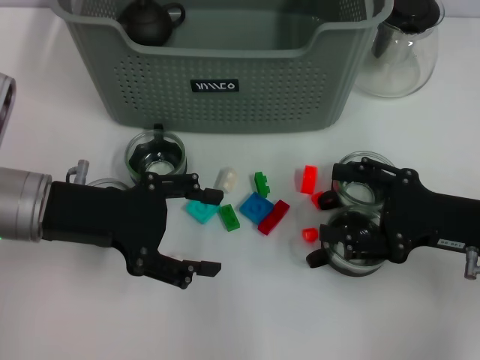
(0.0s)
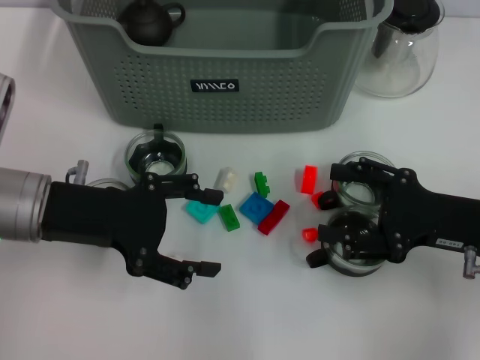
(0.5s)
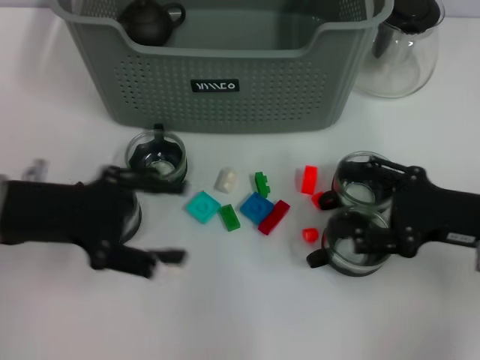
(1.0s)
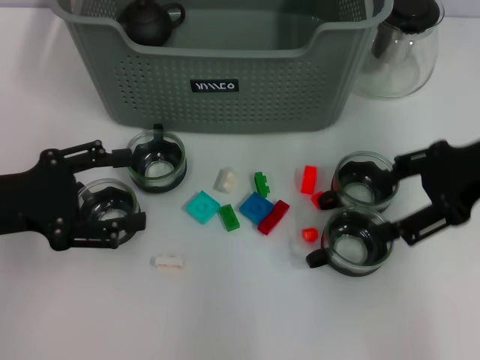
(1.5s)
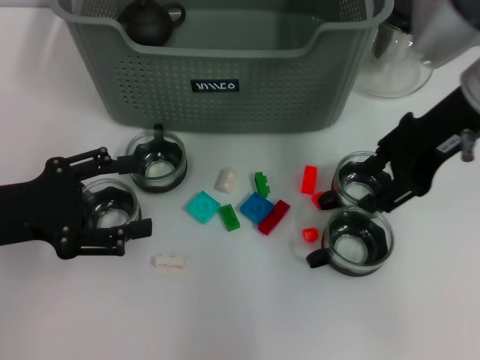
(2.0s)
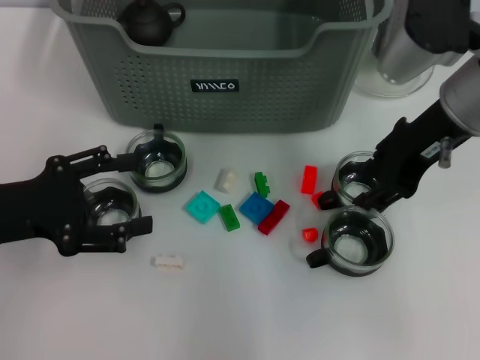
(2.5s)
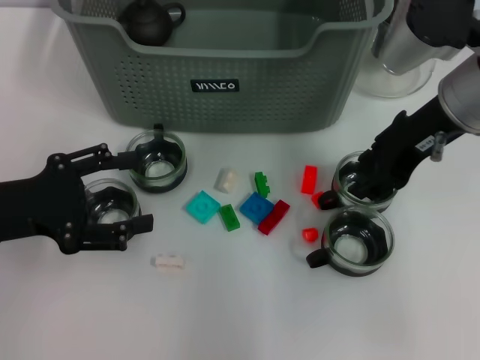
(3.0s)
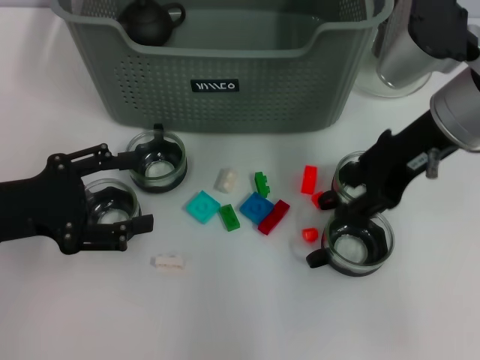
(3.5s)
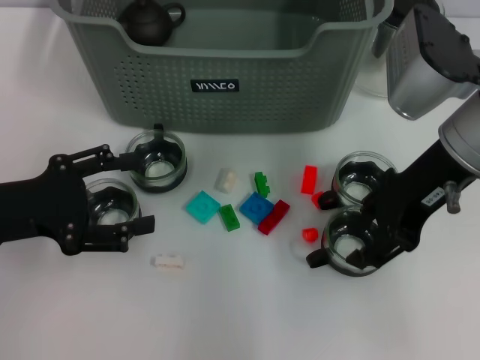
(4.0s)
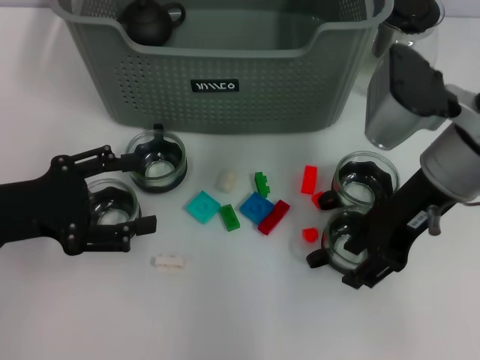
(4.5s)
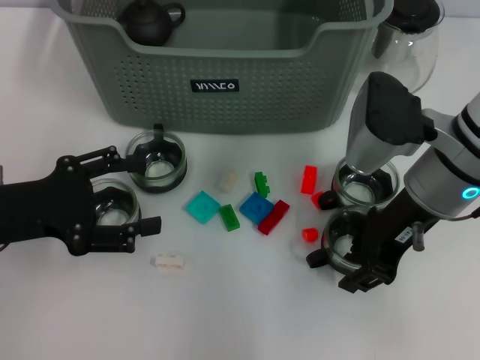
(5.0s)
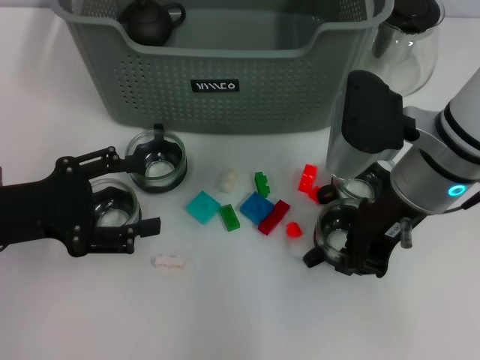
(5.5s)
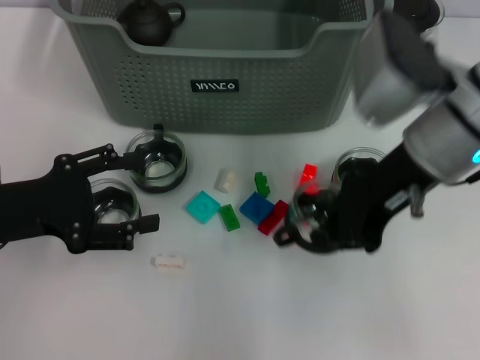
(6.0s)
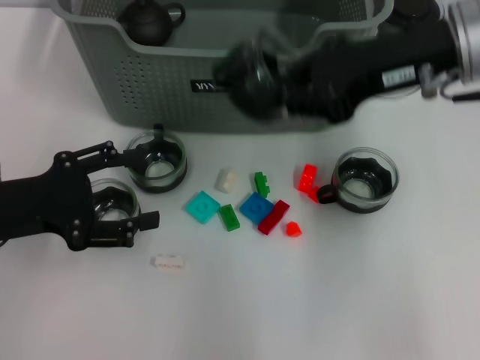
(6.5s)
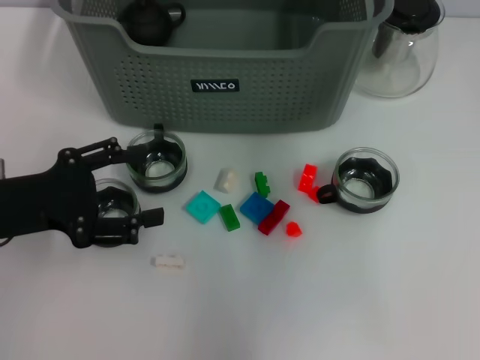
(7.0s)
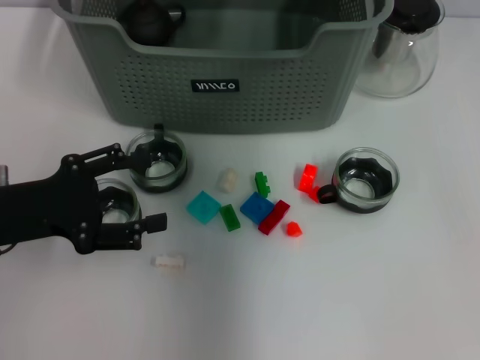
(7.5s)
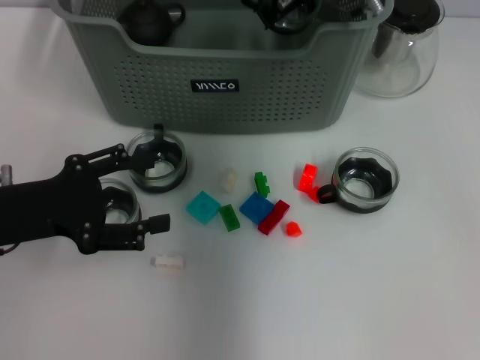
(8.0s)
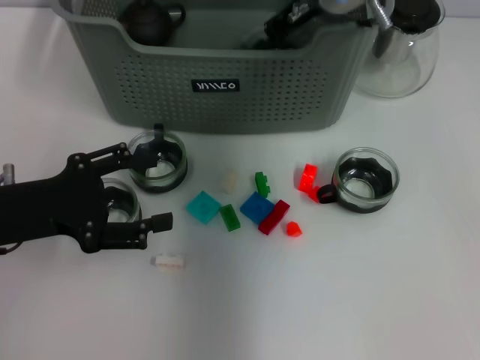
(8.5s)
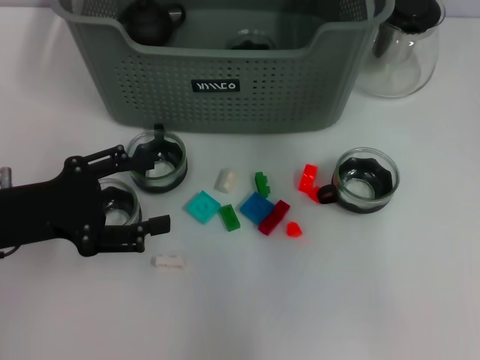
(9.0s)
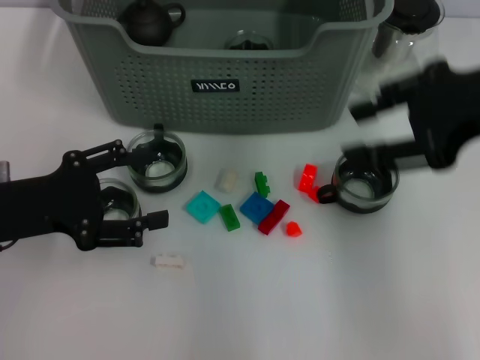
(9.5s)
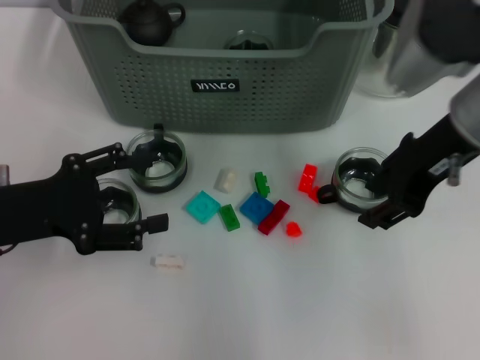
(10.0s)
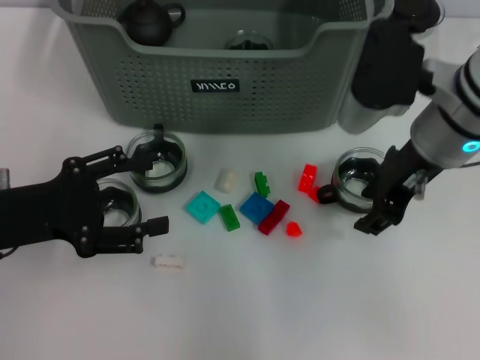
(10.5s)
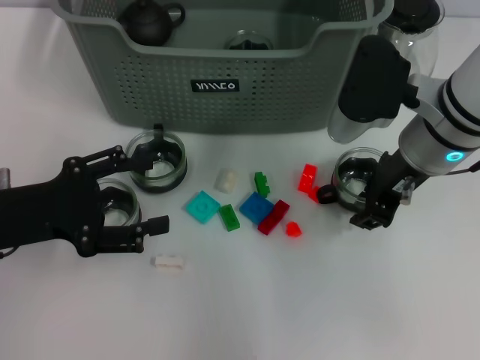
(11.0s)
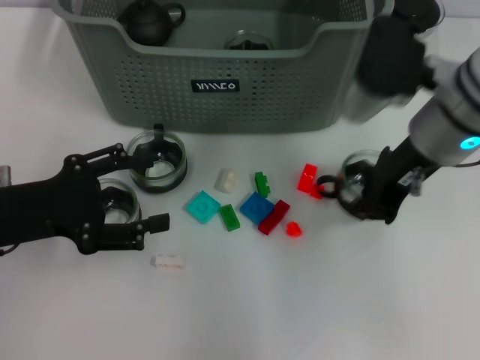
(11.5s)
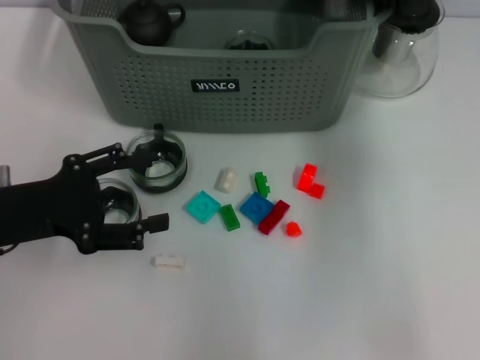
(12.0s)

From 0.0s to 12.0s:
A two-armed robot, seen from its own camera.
Task of the whole recording: pick up the teacup on the table and place it into the storage bin, pick up the block on the table and place it into the storage bin.
Step, from 0.0s to 5.0s: Grasp the cup with right gripper.
Step, from 5.5s to 8.5s: Place the cup in the storage box with right gripper.
Step, from 9.0s to 11.0s: Grasp the cup with right gripper.
From 0.0s to 2.0s: The left gripper shifts about 5 cm to the left, while the right gripper heads upward, forward and to the left, covering some 20 cm.
From 2.0s to 4.0s: The grippers stay close to where they were, moving slightly.
From 4.0s to 6.0s: The right gripper closes its fingers.
From 6.0s to 8.0s: The right gripper heads forward and to the left, covering roughly 15 cm.
From 8.0s to 10.0s: The right gripper shifts roughly 15 cm backward and to the right, and opens its fingers.
From 10.0s to 12.0s: The right gripper goes roughly 10 cm upward, and closes its fingers.

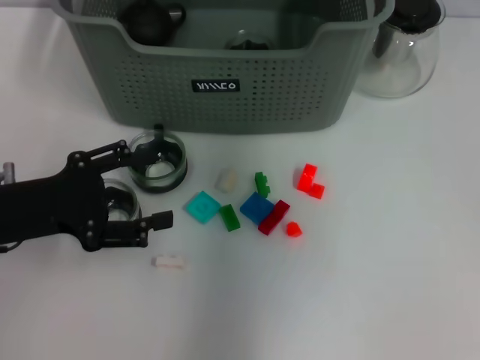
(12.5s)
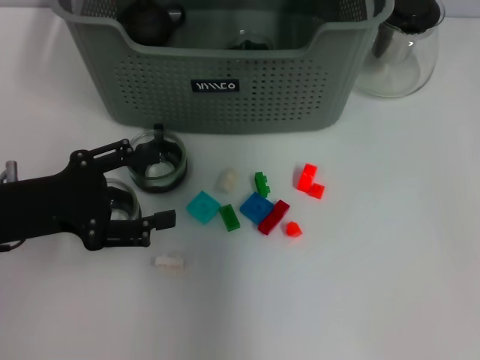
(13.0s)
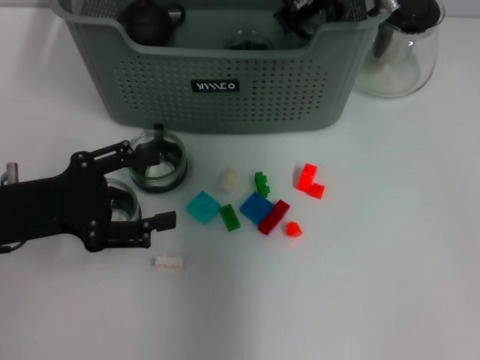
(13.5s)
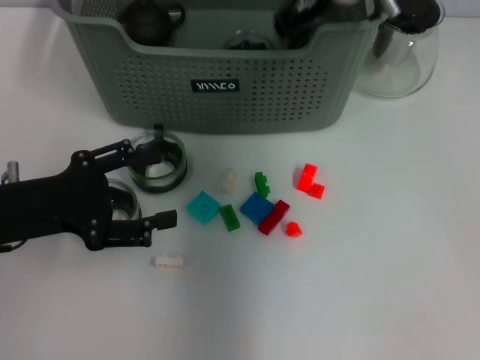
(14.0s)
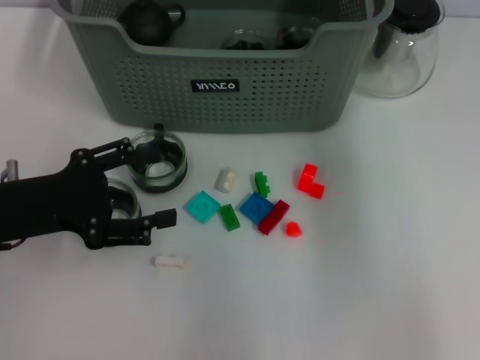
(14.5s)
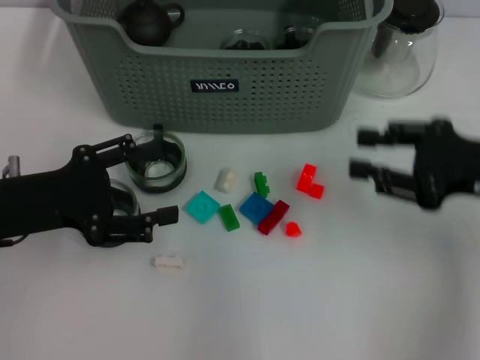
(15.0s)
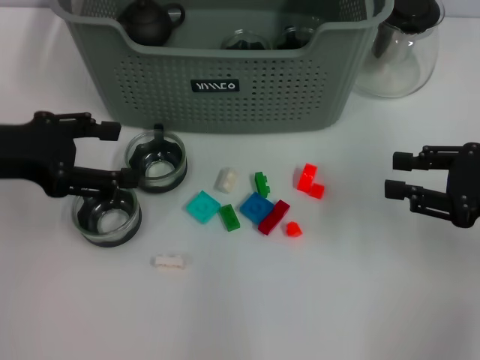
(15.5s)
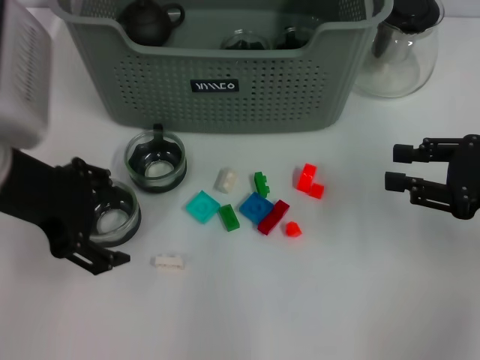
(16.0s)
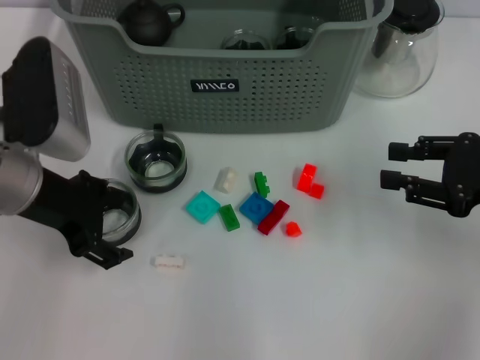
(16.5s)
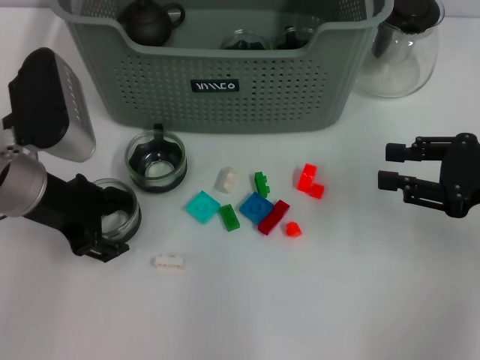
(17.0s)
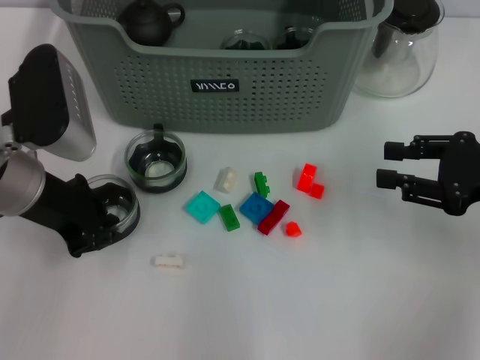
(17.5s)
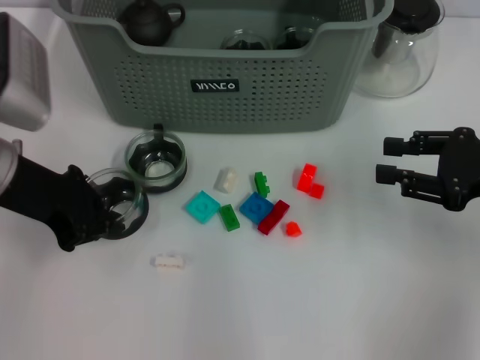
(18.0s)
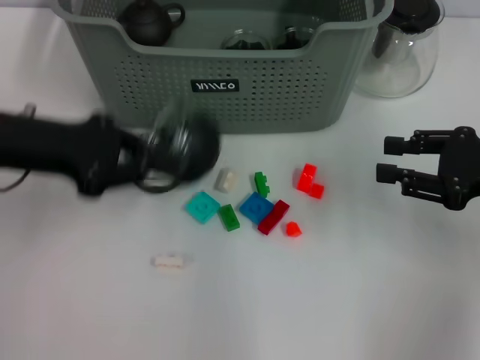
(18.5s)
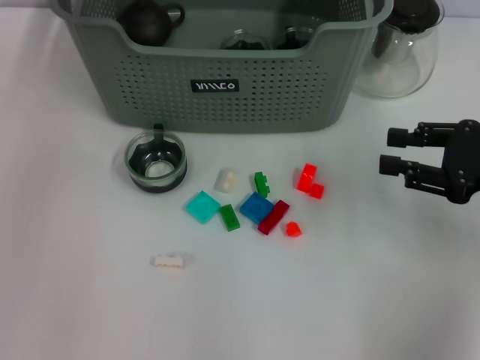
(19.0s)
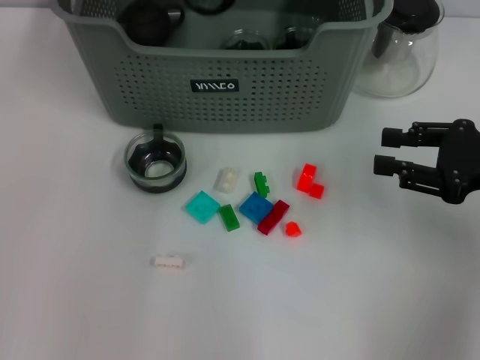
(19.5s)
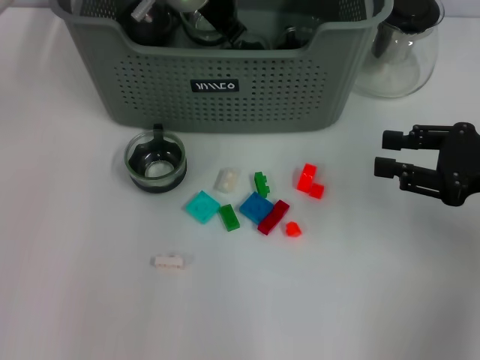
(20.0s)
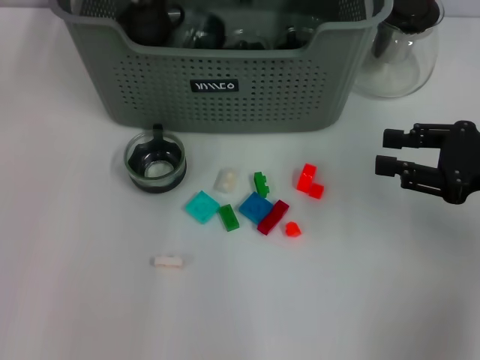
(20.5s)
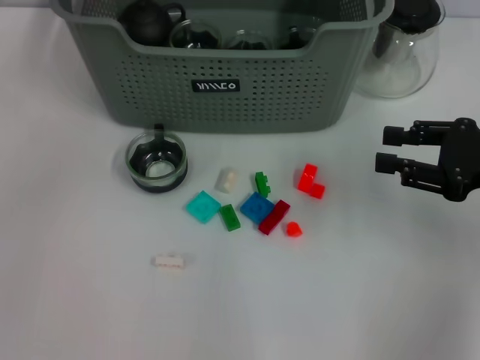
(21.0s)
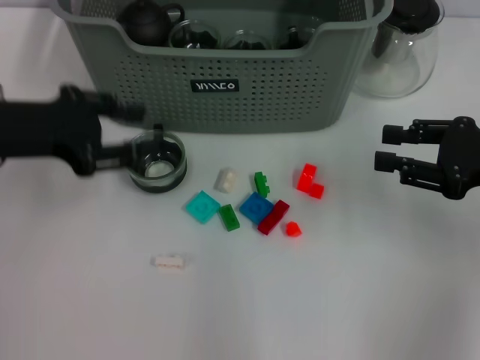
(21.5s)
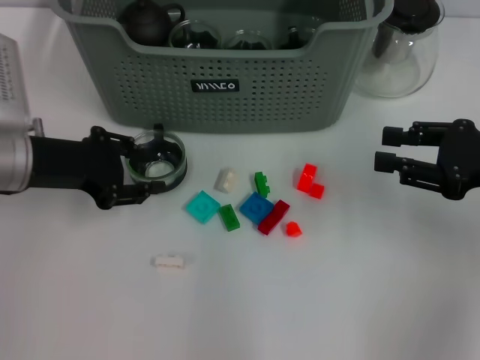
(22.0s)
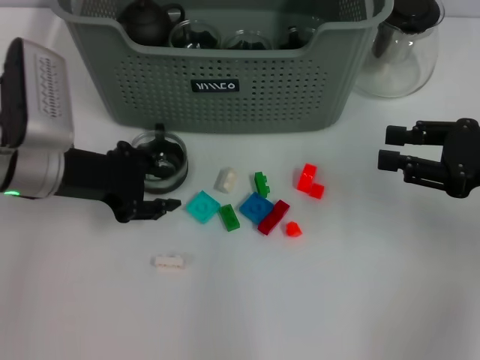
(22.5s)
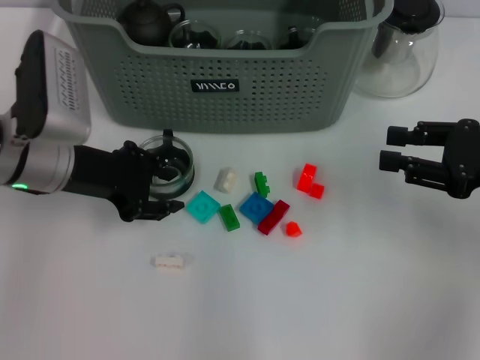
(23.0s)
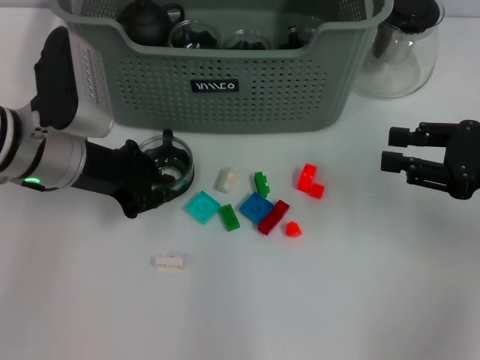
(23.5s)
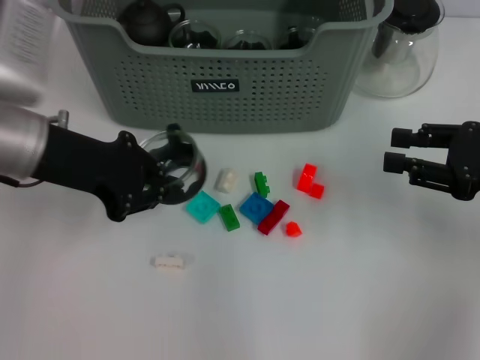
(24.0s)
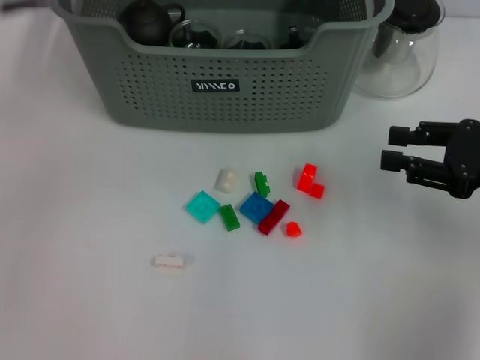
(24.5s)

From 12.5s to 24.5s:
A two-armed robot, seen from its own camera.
Task of the whole recording: pick up the teacup on the table and place it into the storage bin, pick up the block on the table and place it into the storage bin.
Step, from 12.5s to 14.0s: Place the cup in the storage box with right gripper.
Step, from 14.5s to 17.5s: Grasp the cup with left gripper.
Step, from 18.0s to 20.0s: Place the cup in the storage box with left gripper.
Step, from 21.0s to 23.5s: Grasp the cup with left gripper.
From 12.5s to 14.5s: The right gripper travels to the right by some 10 cm, and opens its fingers.
From 14.5s to 16.5s: The right gripper shifts some 25 cm downward, to the right and backward; the left gripper moves to the right, roughly 5 cm.
From 16.5s to 18.5s: The left gripper closes.
From 18.5s to 20.5s: The left gripper travels to the right and forward by about 25 cm, and opens.
From 20.5s to 22.5s: The left gripper moves backward, to the left and downward, about 25 cm.
From 22.5s to 24.5s: The left gripper shifts about 15 cm upward, and closes its fingers.

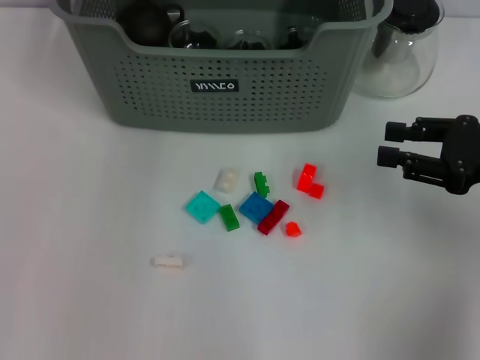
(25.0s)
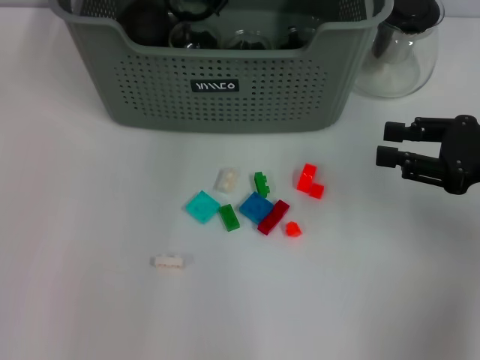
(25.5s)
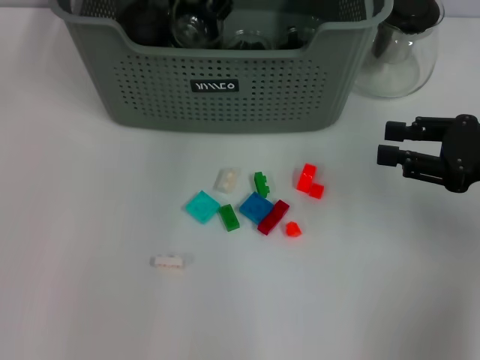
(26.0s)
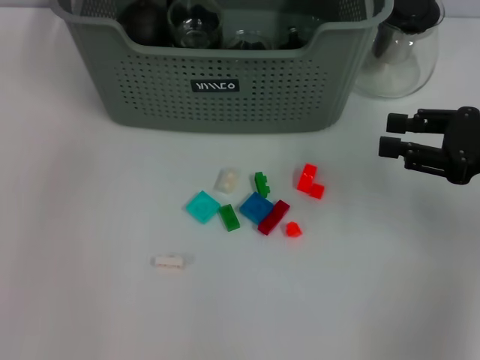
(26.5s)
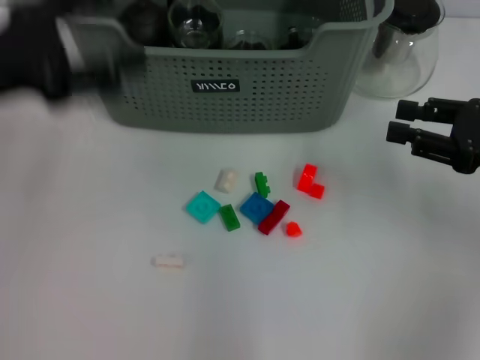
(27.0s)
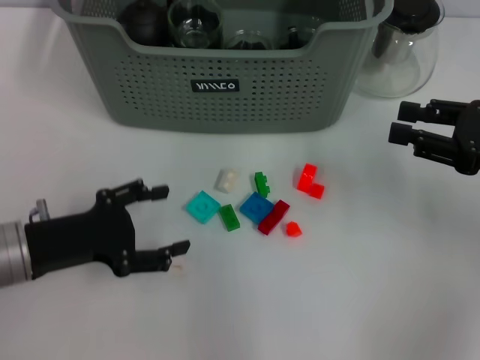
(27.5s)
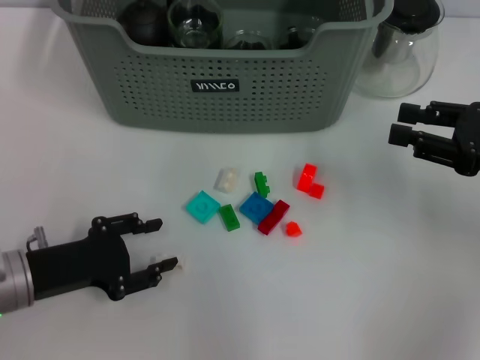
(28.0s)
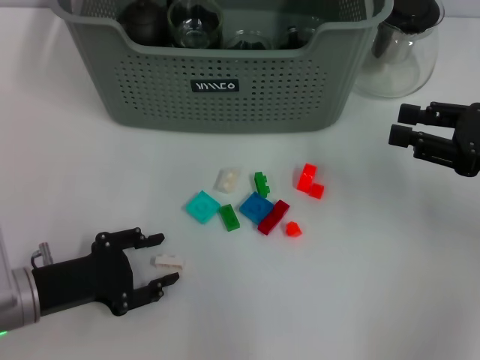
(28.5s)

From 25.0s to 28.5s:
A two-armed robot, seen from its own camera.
Task of the whole recording: pick up the teacup on the table and place it into the storage bin, pick up the block on the table and place it into the storage bin.
From 25.0s to 27.0s: The left gripper travels backward, to the left and downward by roughly 25 cm, and opens its fingers.
From 27.0s to 28.5s: The left gripper travels downward and backward by some 20 cm.
